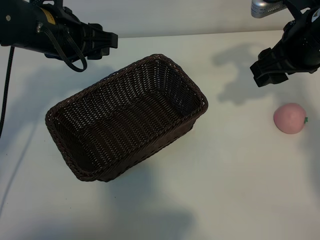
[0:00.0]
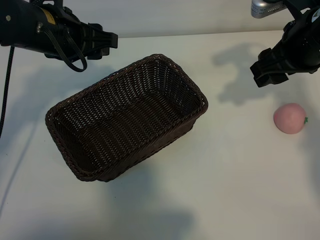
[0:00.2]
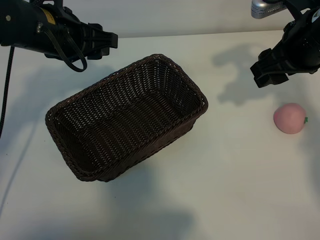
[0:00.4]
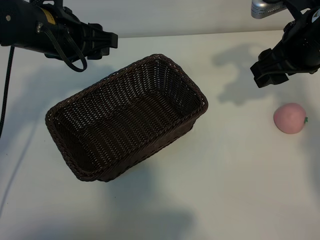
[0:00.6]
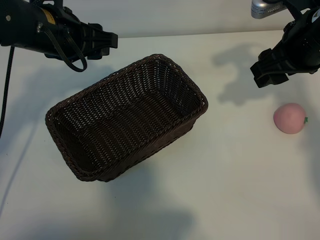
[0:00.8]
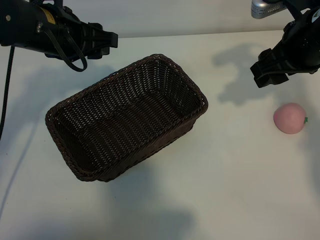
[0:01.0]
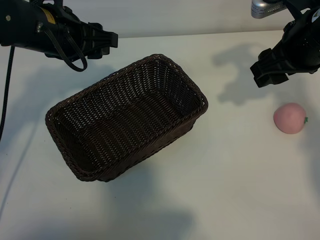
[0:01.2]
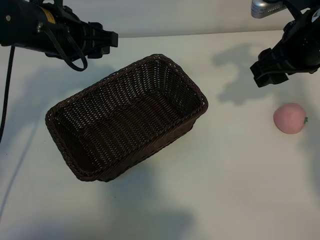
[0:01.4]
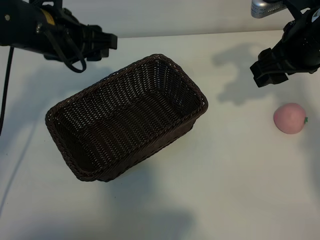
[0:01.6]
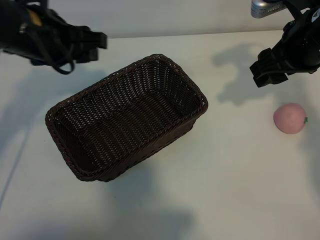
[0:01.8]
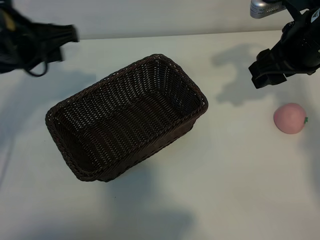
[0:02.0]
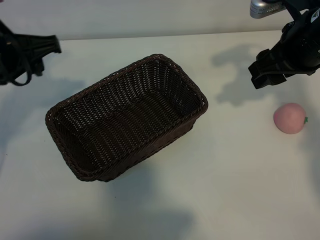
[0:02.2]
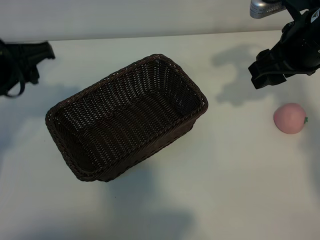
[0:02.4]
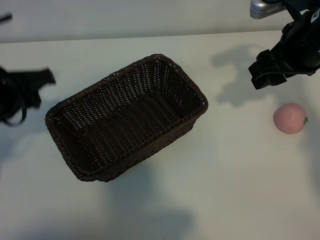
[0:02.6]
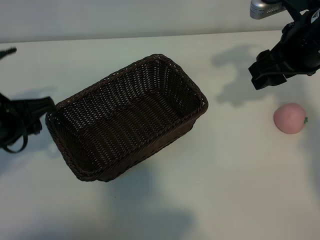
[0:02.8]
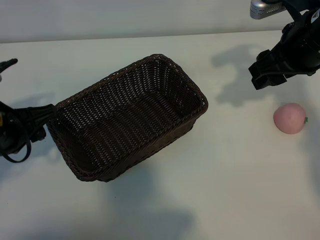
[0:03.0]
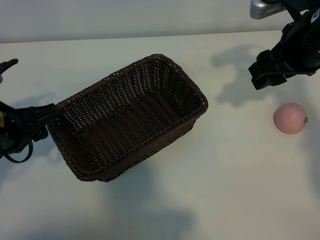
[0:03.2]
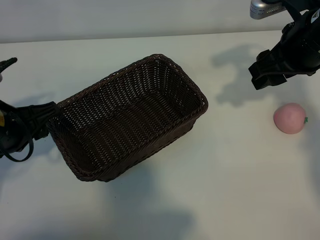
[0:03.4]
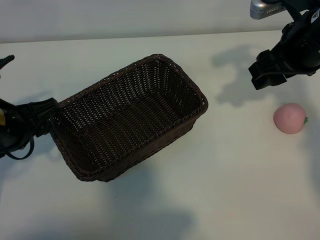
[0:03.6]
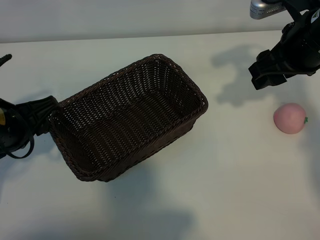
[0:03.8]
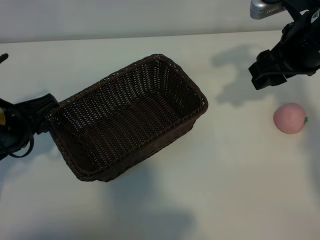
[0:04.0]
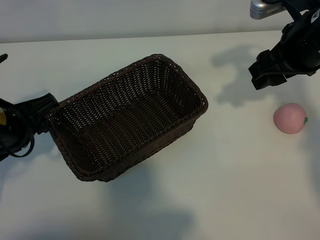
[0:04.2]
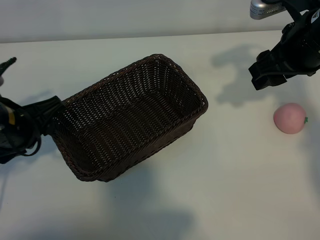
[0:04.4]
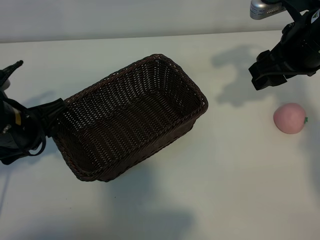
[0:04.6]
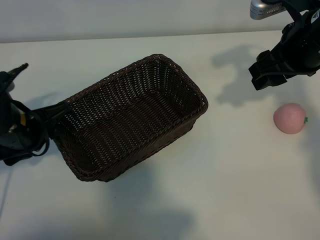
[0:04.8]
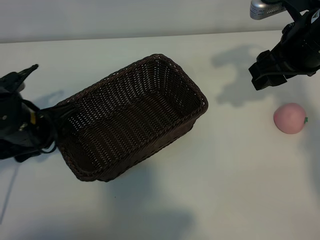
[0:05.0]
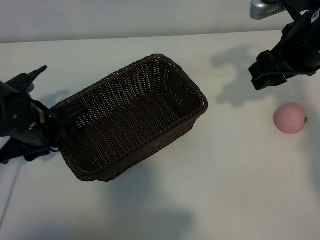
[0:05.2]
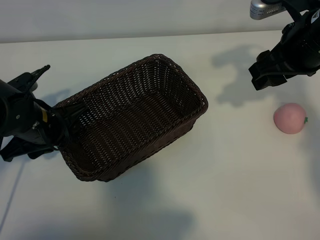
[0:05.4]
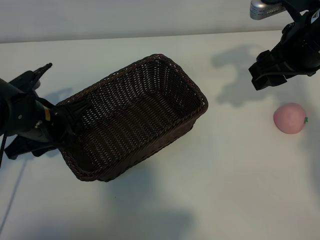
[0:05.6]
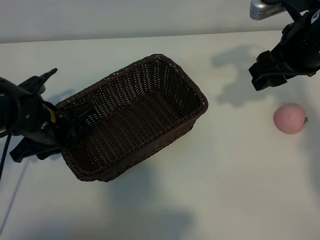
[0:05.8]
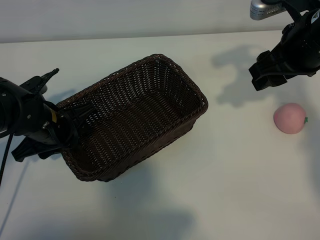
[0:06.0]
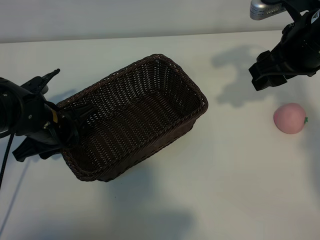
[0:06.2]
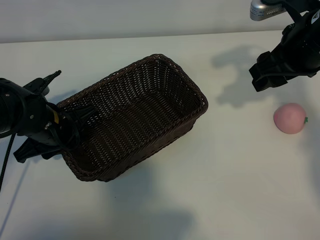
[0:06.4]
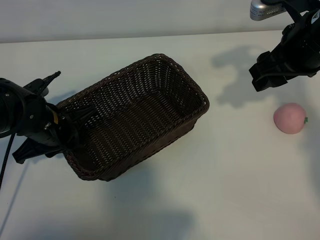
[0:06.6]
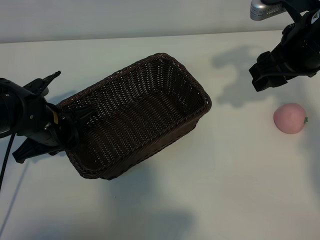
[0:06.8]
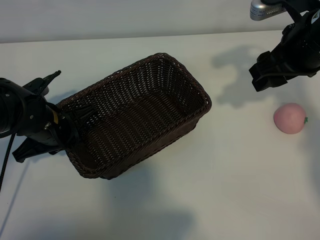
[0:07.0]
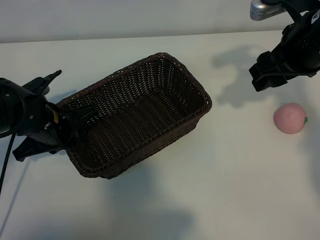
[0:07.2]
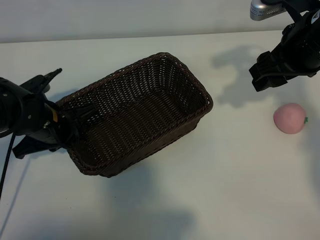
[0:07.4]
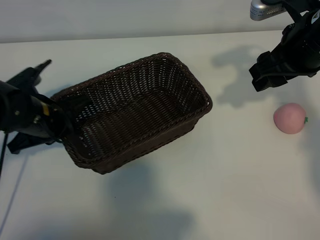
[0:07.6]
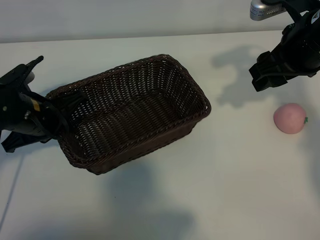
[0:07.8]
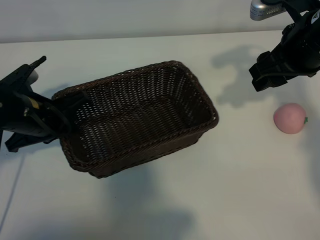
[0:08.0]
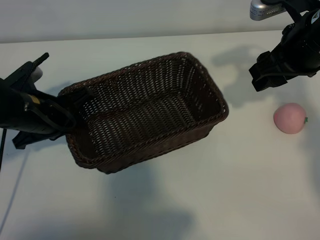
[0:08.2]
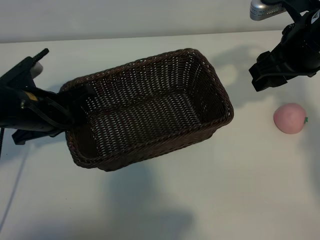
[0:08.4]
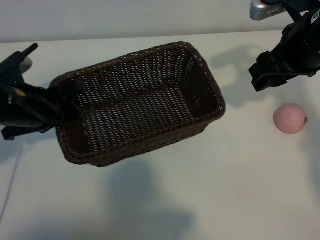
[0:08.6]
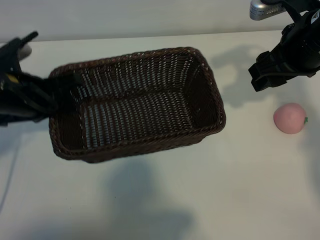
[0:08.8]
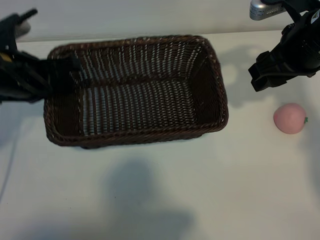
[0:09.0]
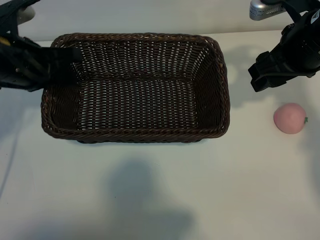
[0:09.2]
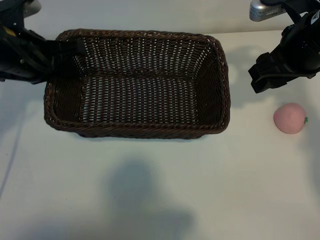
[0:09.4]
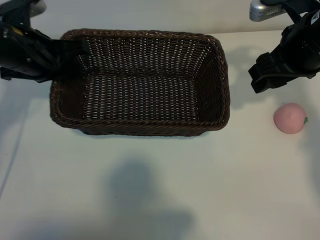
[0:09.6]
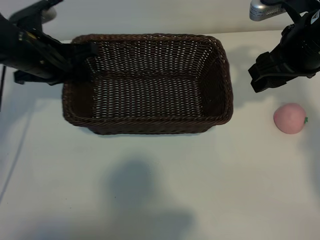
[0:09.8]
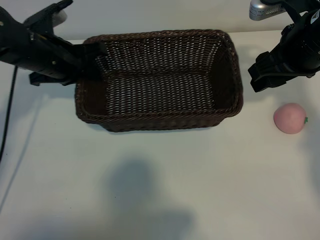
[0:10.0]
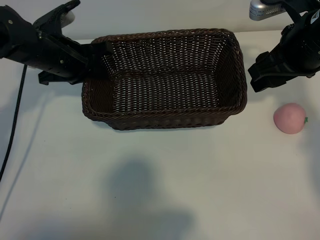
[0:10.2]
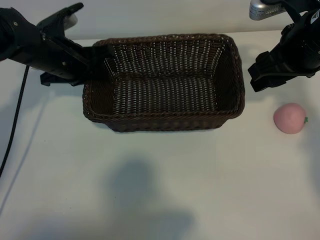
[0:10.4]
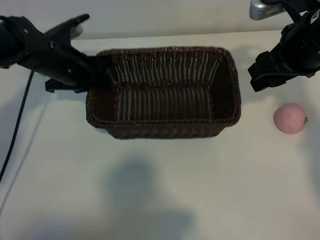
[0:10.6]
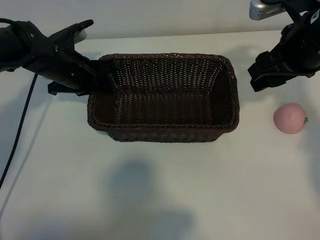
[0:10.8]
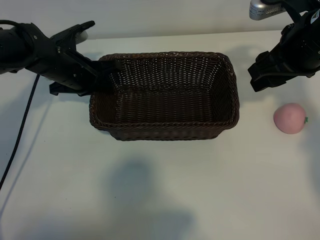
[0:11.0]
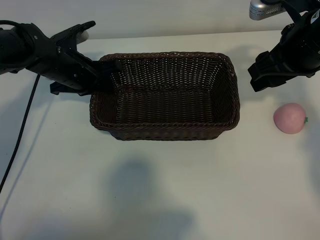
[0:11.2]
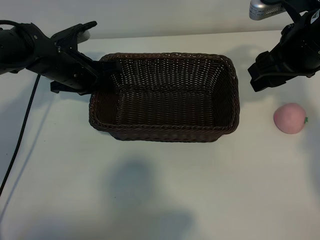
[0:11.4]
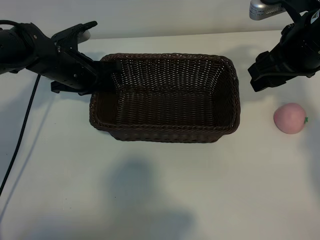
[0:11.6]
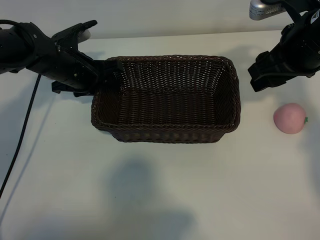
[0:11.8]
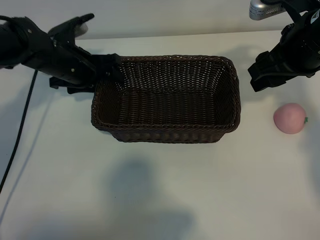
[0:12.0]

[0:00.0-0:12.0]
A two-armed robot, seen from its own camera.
Task of the whole recording: pick up the peach and put it into the basket.
Step, 0:01.4 to 0:07.0: Grasp the basket with left gripper.

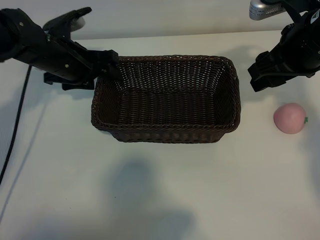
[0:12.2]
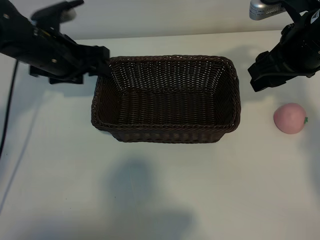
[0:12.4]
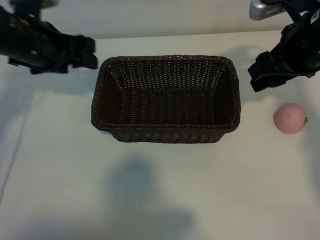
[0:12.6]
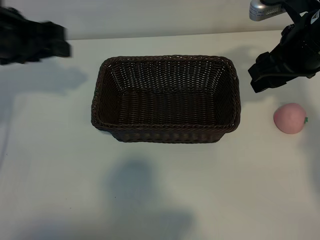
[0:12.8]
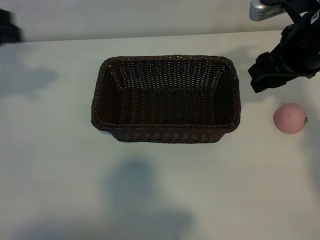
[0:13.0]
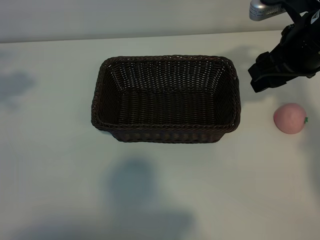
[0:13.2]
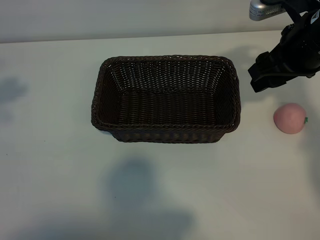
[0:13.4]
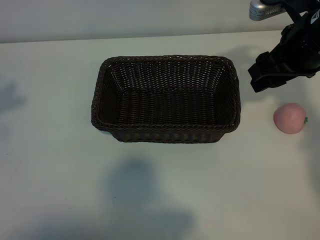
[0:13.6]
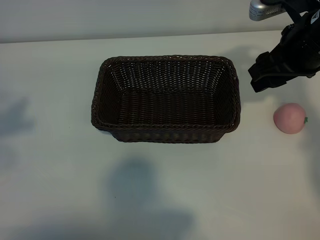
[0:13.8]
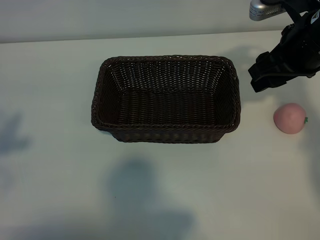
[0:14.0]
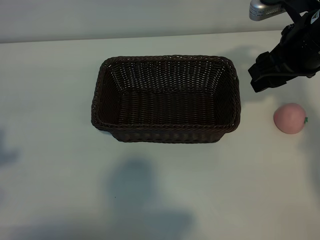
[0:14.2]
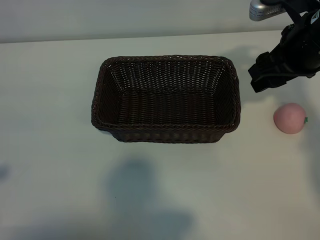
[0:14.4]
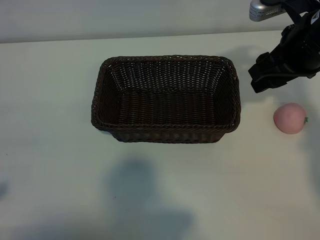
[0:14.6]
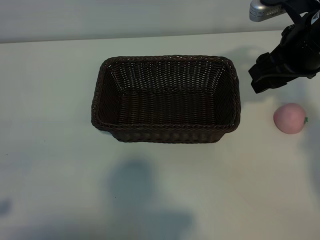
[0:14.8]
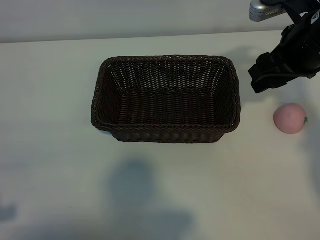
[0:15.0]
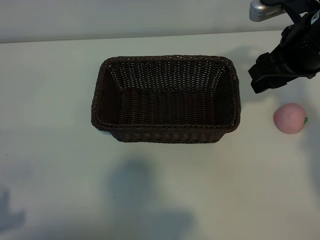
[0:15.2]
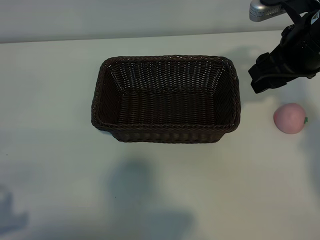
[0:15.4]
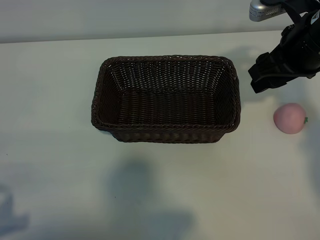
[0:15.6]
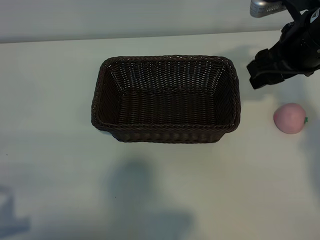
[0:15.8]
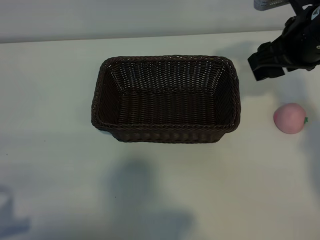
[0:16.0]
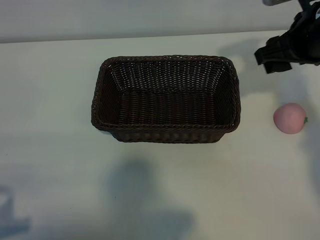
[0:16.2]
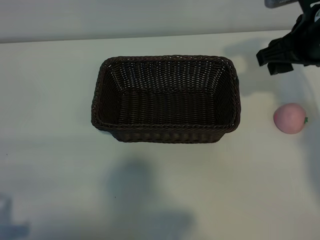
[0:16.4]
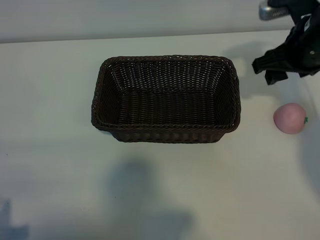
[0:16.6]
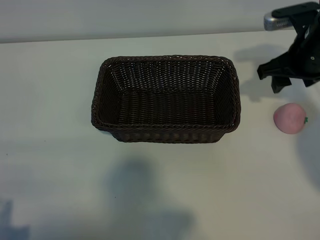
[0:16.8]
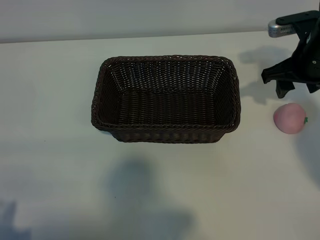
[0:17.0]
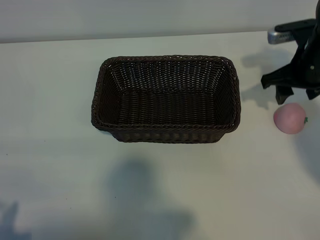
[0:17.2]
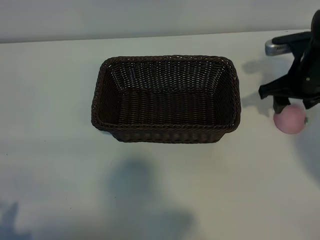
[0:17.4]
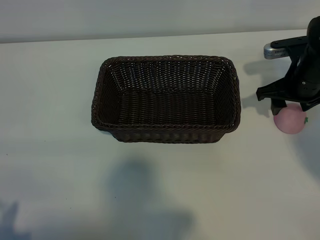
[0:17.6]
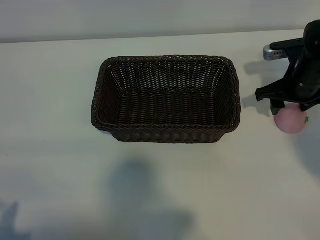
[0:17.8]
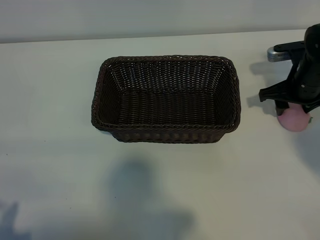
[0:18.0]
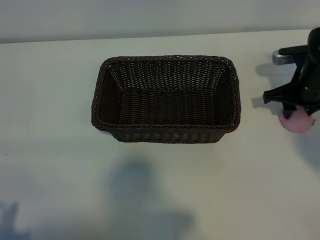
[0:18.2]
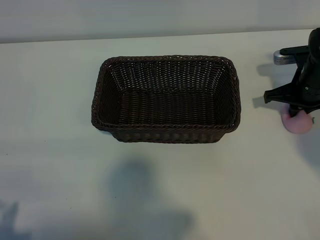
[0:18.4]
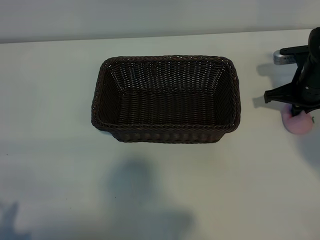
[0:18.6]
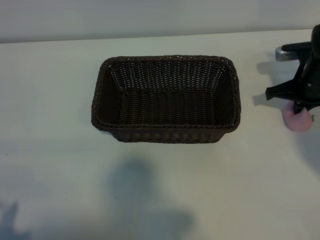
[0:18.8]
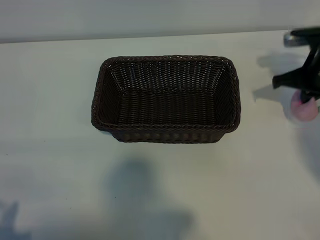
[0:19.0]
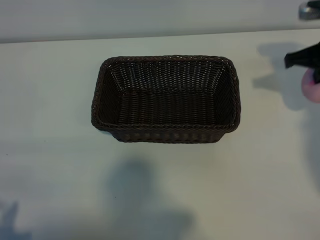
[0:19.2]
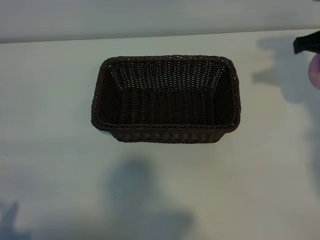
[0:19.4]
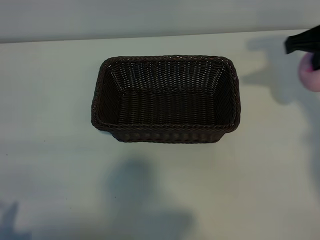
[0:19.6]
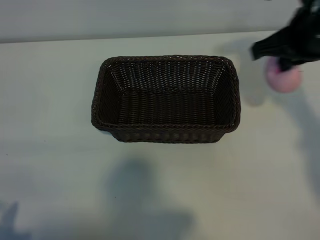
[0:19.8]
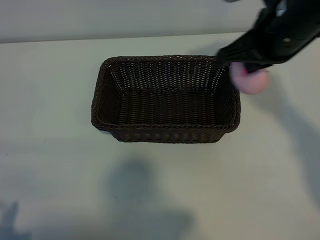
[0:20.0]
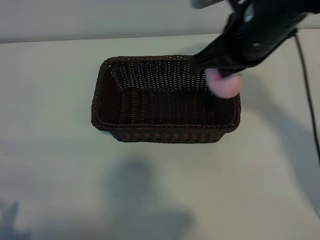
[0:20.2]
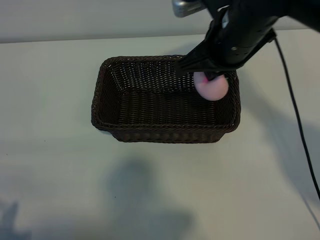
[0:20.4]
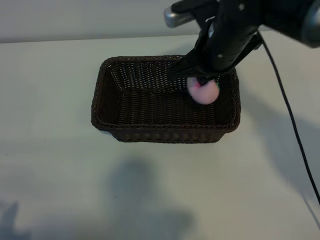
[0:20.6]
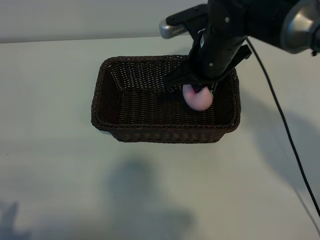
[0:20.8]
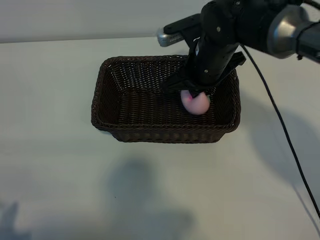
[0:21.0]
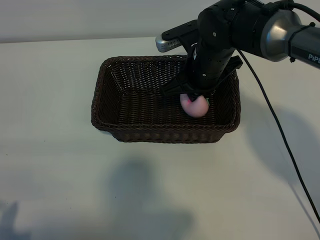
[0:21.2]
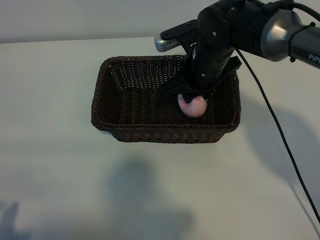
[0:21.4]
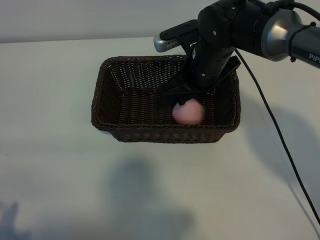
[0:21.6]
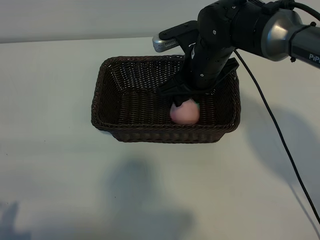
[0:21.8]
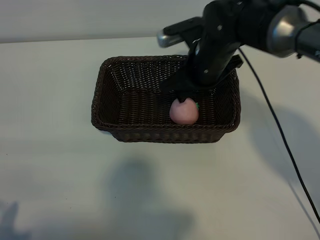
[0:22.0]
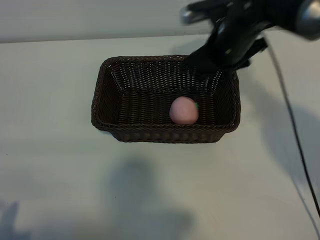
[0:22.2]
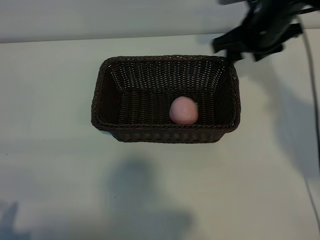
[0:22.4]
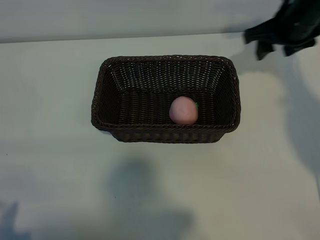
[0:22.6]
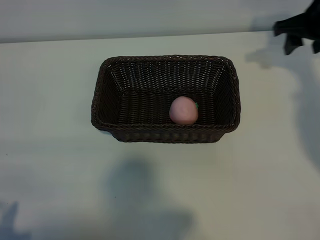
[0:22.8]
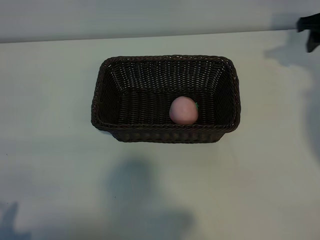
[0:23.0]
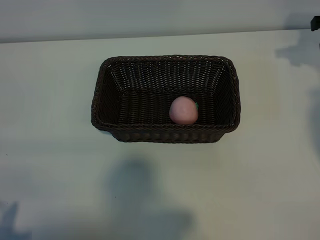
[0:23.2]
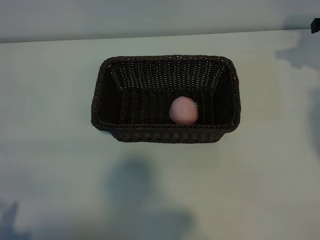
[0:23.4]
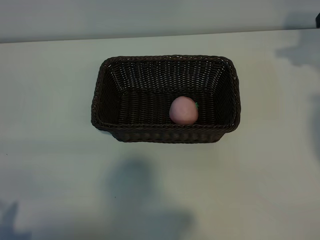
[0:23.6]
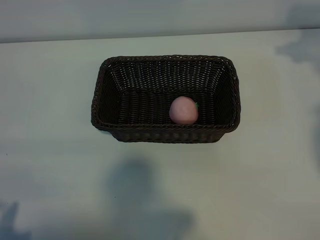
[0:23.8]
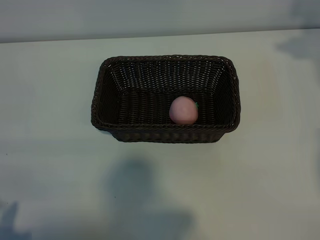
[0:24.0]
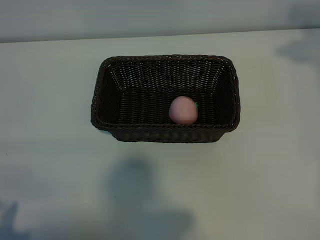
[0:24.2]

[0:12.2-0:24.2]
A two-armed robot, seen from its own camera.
Task of the whole recording: pick up the peach and put it into the basket.
Step, 0:12.4 to 0:18.4: Grasp the peach with right gripper.
Step, 0:18.8 to 0:21.8: Place the peach in the basket with right gripper.
